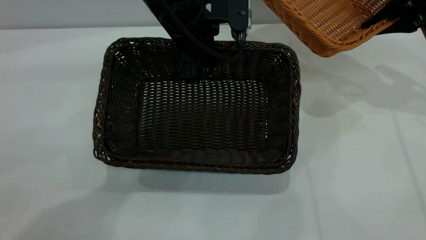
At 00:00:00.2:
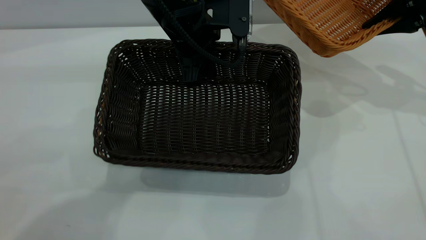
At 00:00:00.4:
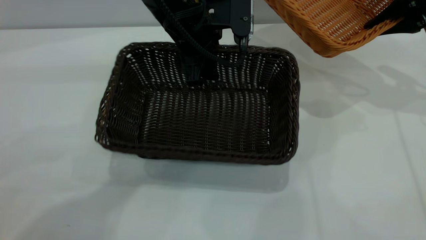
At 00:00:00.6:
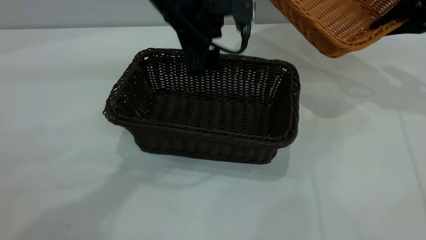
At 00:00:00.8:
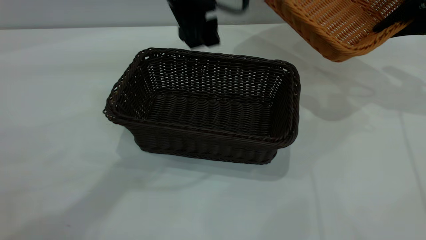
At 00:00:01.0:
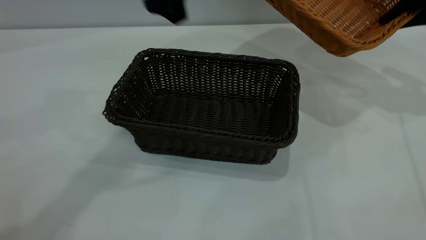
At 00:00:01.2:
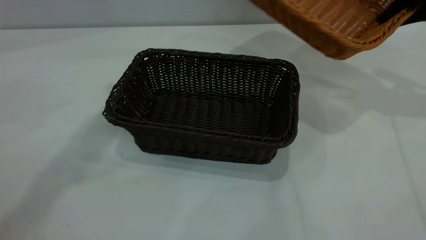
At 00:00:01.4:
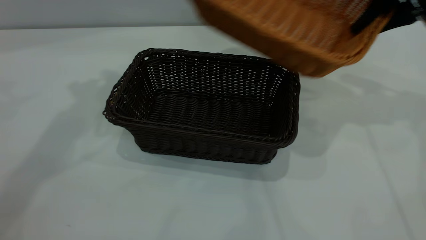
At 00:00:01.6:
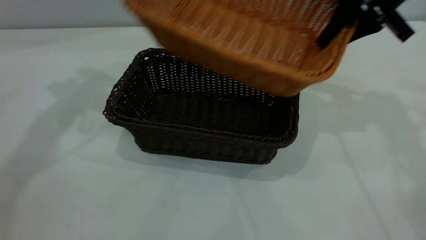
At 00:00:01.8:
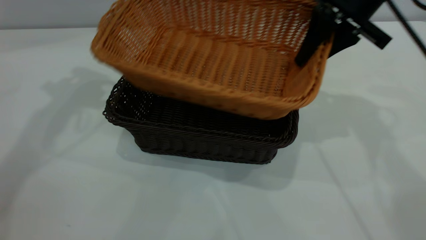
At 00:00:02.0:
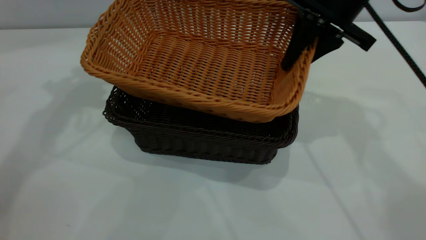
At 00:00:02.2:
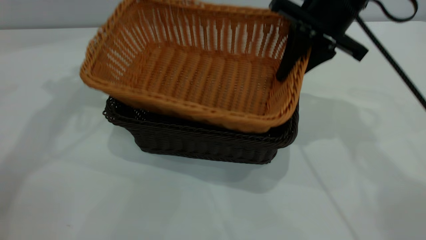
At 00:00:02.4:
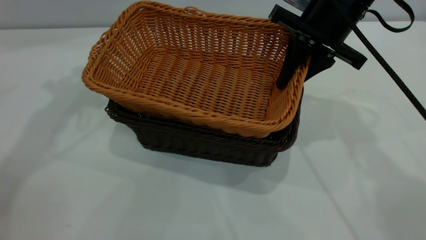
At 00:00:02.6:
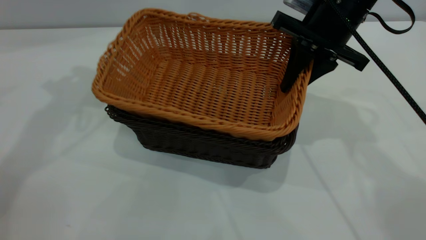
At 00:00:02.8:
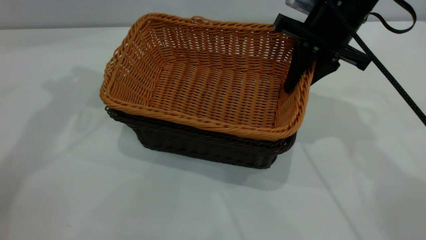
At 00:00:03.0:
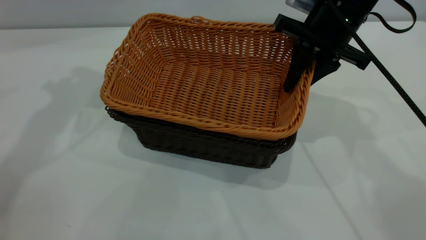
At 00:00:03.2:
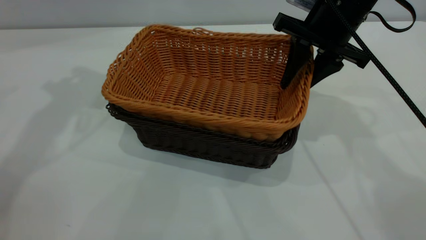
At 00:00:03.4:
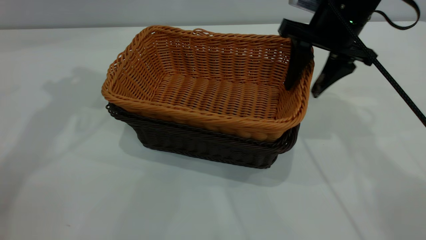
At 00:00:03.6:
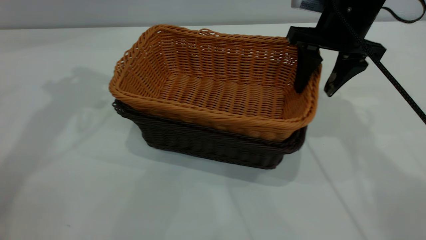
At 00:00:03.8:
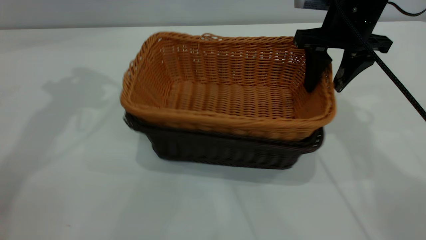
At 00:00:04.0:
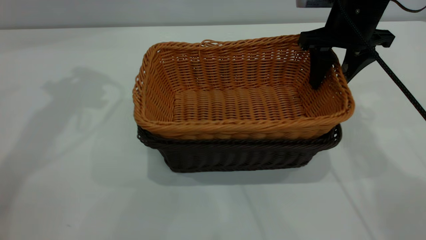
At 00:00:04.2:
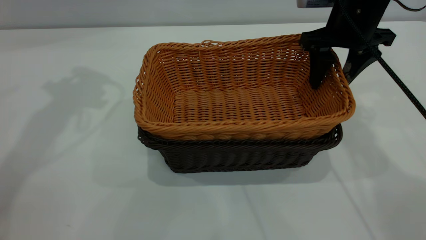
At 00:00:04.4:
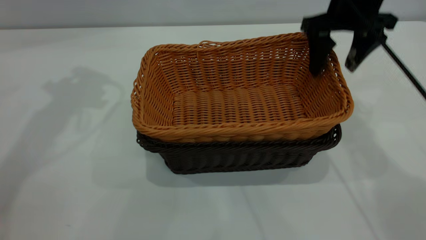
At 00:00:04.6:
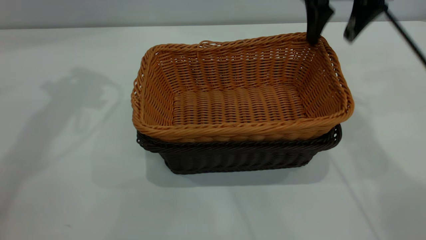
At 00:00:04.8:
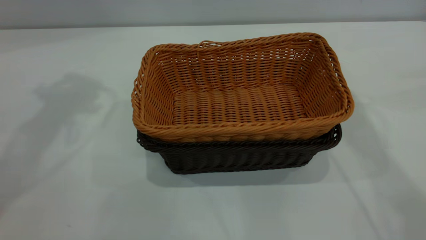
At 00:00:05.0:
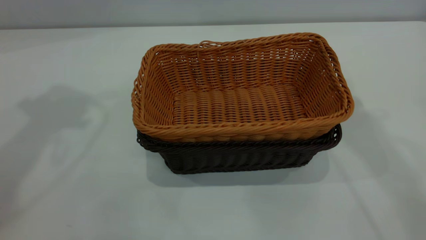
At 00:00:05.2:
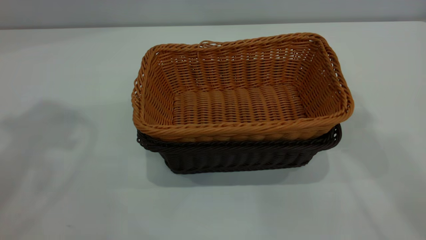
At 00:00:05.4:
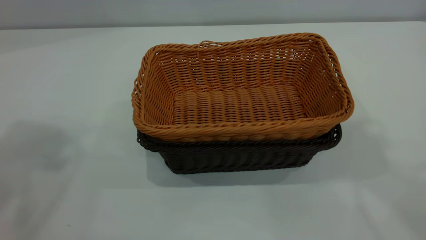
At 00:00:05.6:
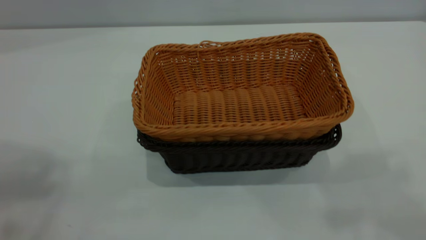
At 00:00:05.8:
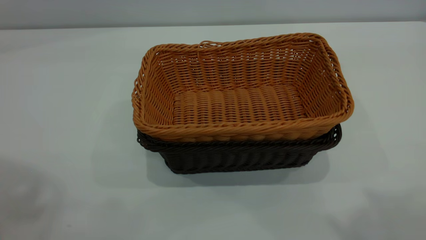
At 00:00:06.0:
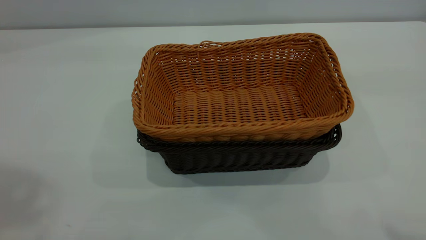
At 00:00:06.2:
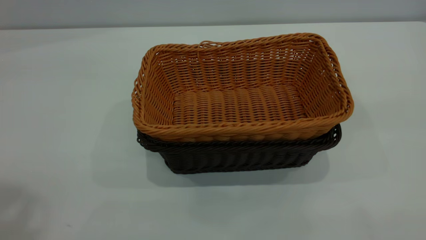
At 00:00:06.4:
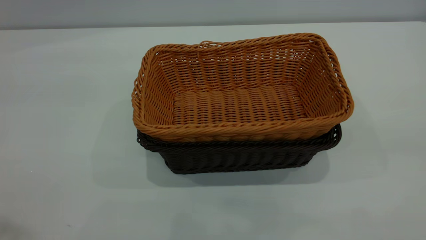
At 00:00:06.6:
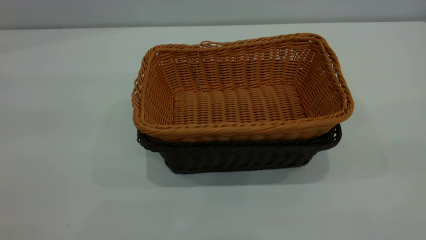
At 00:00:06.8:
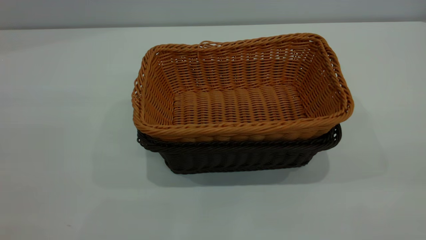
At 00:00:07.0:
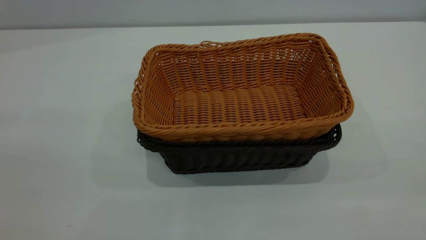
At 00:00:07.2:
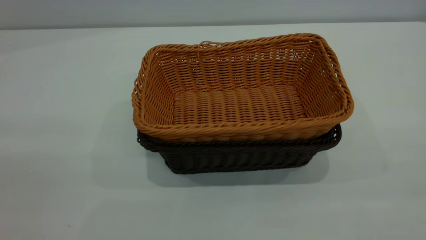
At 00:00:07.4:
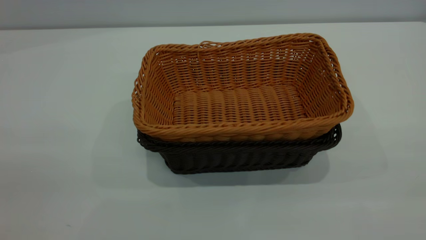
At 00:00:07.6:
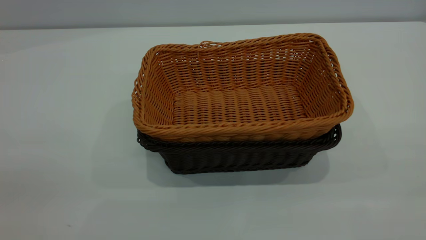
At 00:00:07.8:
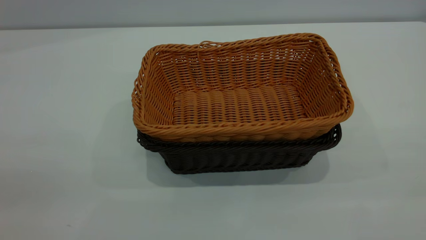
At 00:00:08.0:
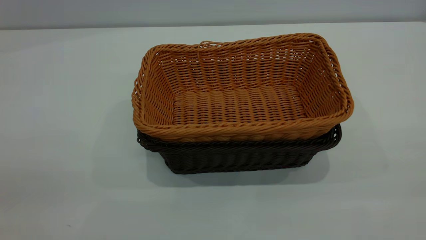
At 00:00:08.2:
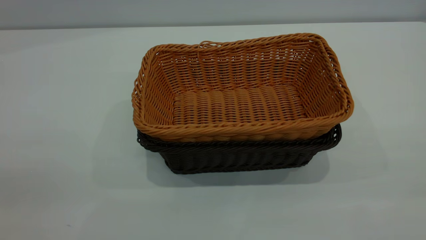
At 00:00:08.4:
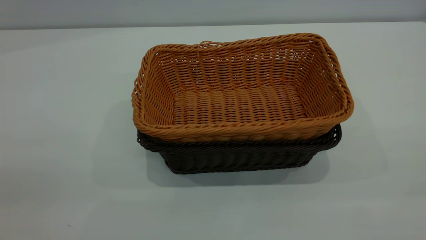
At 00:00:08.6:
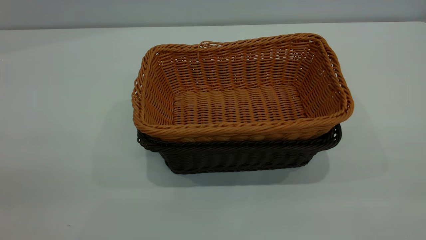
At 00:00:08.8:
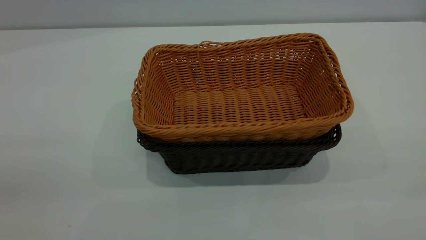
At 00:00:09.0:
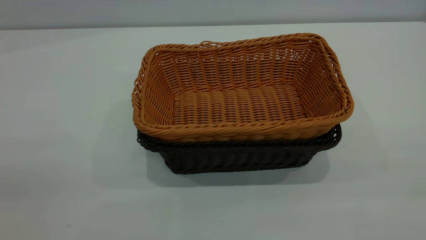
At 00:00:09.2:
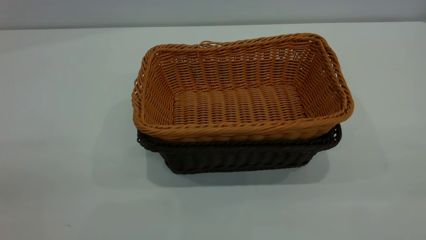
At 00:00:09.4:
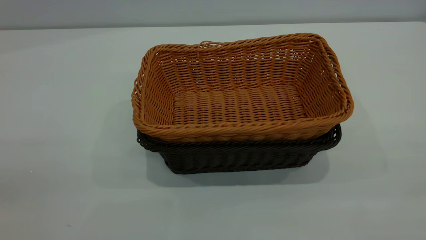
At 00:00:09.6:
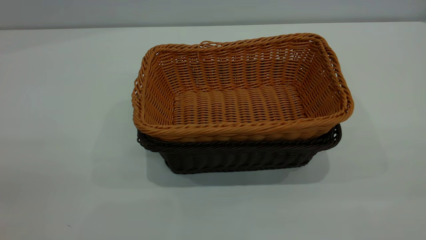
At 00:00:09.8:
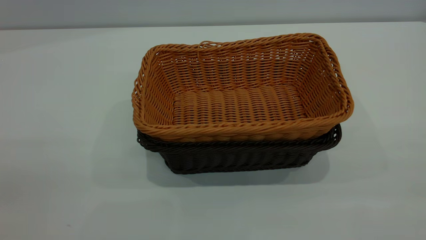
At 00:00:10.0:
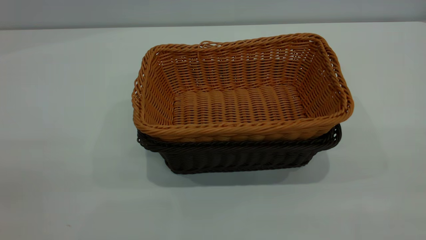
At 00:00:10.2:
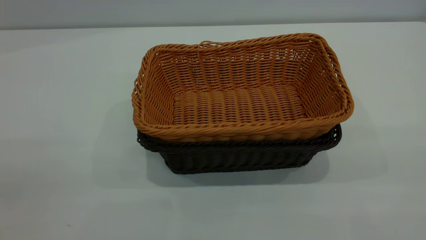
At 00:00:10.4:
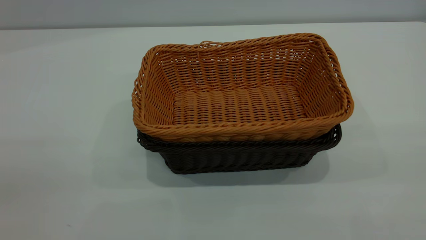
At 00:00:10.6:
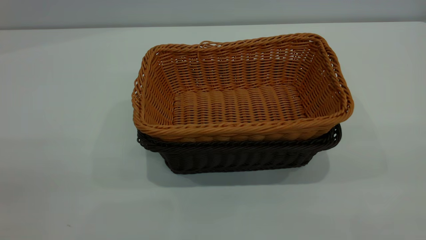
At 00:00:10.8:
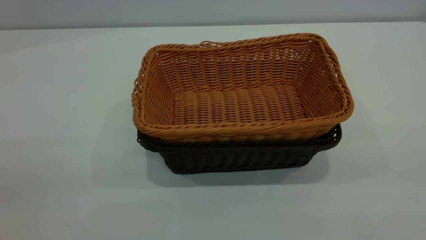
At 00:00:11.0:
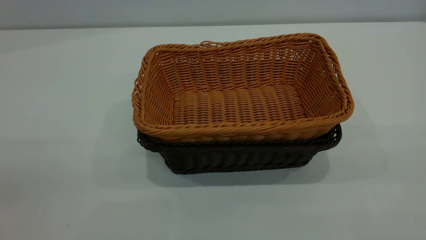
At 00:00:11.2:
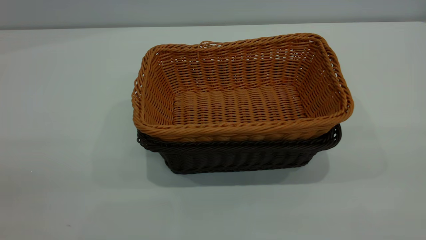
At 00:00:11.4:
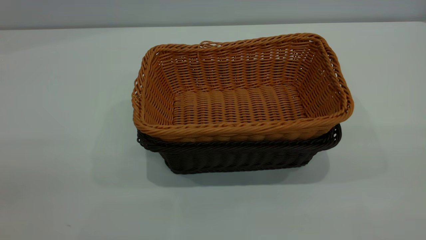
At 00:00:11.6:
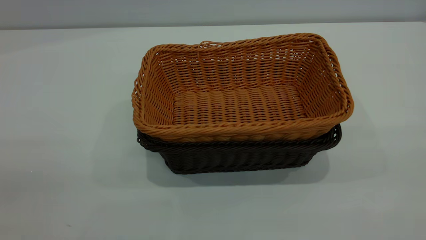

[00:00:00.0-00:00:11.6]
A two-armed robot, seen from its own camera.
Task of the whole recording: the left gripper grasp the black basket and place it in the center of the table, the right gripper grasp the brown basket and place it inside the black one.
Step, 00:00:00.8 to 00:00:04.4: Place the light basket on the dark basket.
00:00:00.0 to 00:00:01.4: The right gripper goes some 5 cm to the left; the left gripper moves to the left and upward, roughly 25 cm, and opens its fingers.
00:00:01.4 to 00:00:02.8: The right gripper travels to the left by approximately 10 cm.
00:00:02.8 to 00:00:04.4: The right gripper opens its fingers.
00:00:04.4 to 00:00:05.8: The right gripper shifts roughly 40 cm upward and backward.
